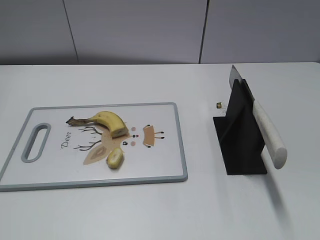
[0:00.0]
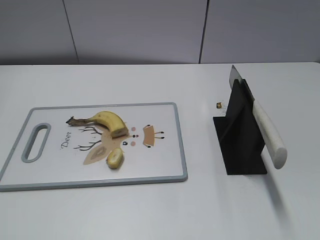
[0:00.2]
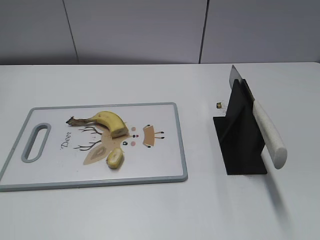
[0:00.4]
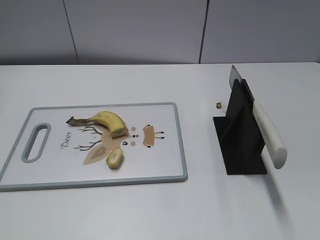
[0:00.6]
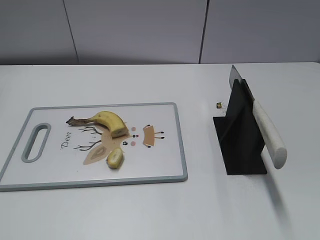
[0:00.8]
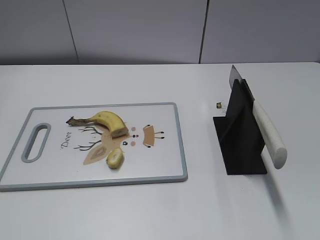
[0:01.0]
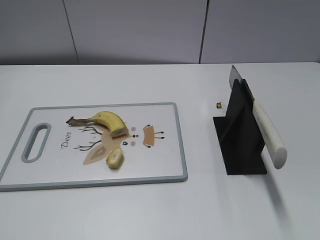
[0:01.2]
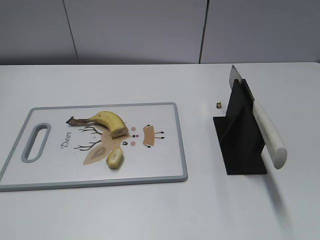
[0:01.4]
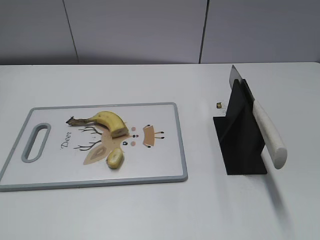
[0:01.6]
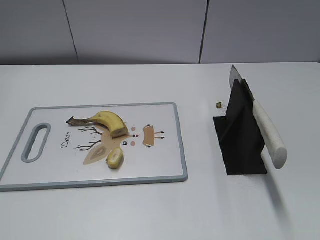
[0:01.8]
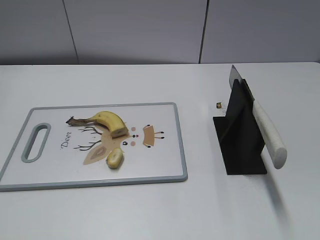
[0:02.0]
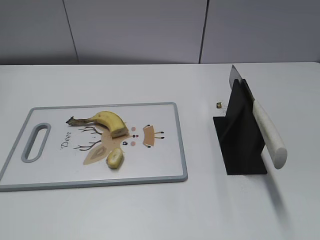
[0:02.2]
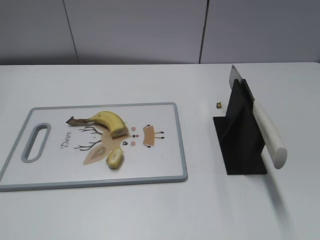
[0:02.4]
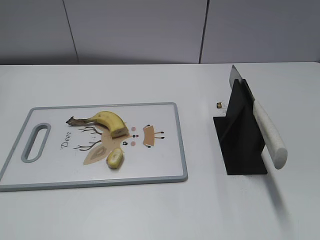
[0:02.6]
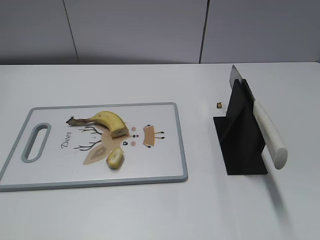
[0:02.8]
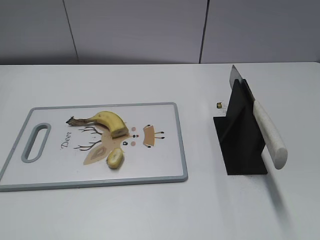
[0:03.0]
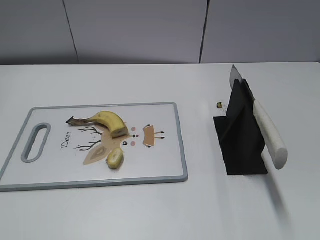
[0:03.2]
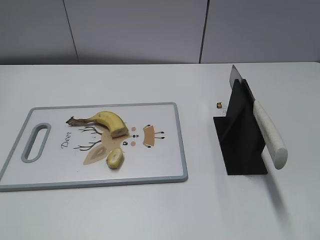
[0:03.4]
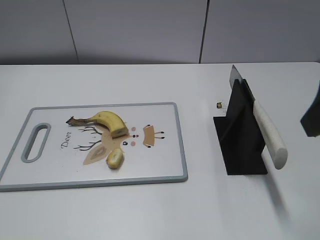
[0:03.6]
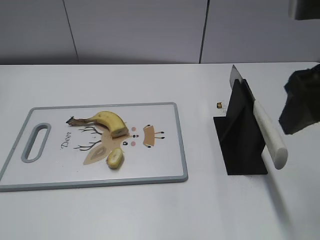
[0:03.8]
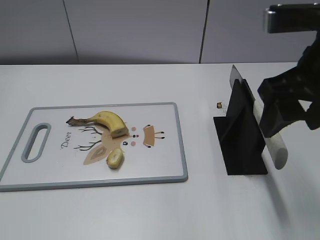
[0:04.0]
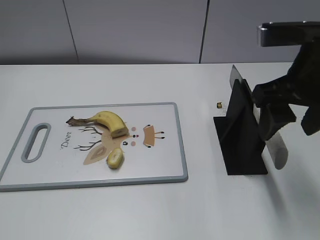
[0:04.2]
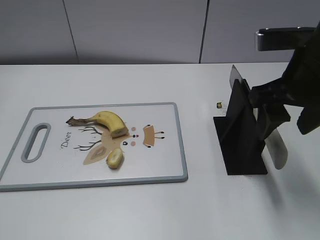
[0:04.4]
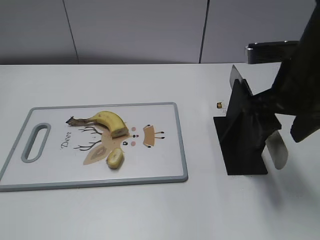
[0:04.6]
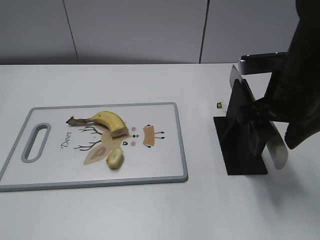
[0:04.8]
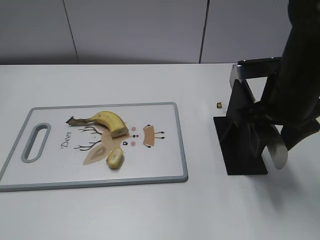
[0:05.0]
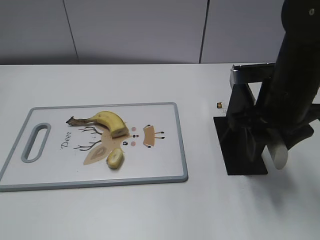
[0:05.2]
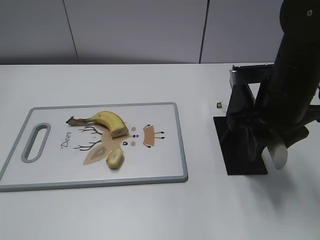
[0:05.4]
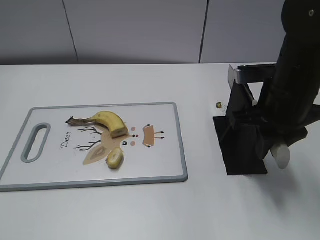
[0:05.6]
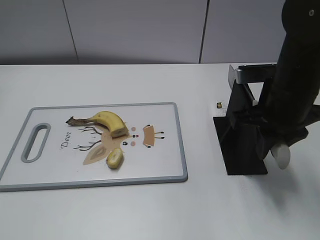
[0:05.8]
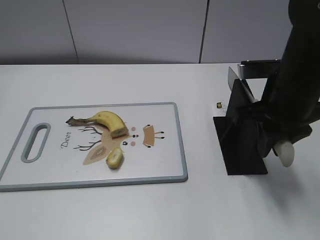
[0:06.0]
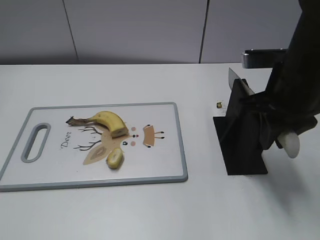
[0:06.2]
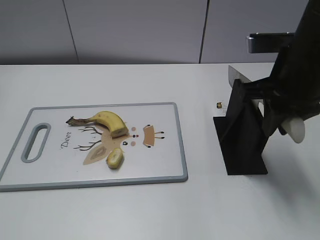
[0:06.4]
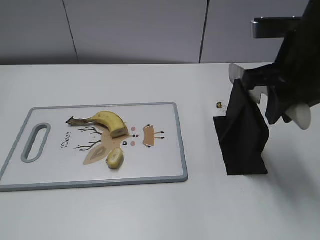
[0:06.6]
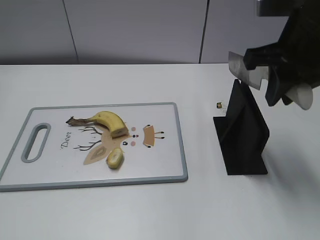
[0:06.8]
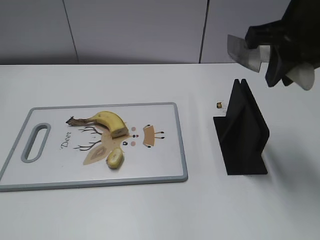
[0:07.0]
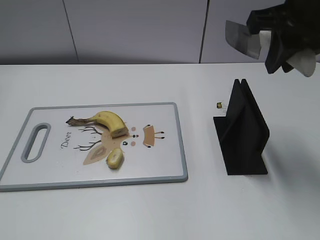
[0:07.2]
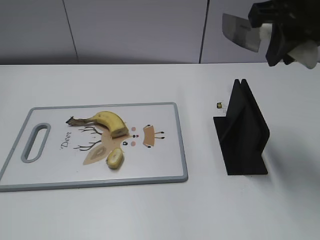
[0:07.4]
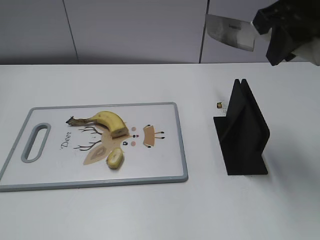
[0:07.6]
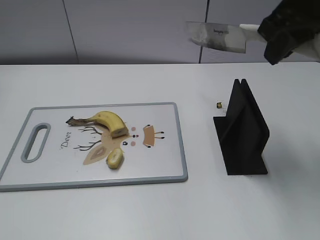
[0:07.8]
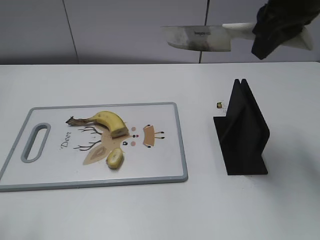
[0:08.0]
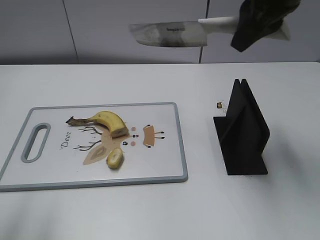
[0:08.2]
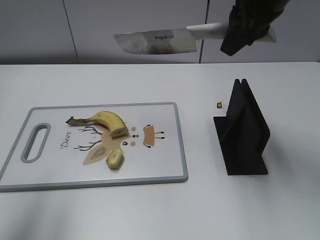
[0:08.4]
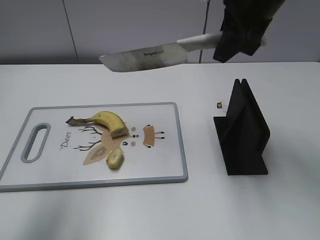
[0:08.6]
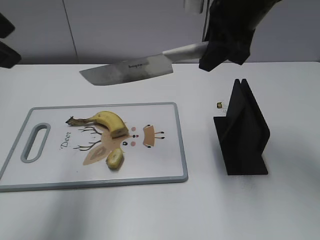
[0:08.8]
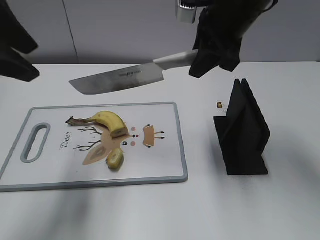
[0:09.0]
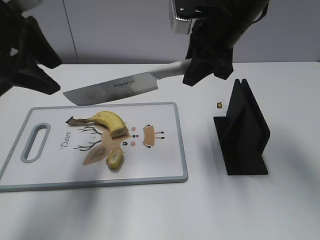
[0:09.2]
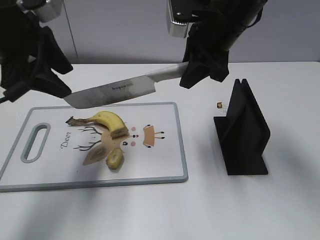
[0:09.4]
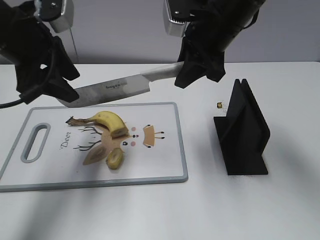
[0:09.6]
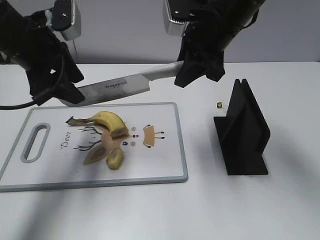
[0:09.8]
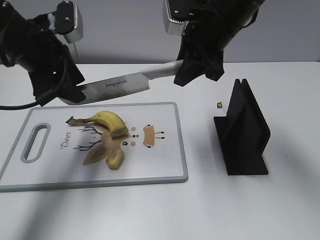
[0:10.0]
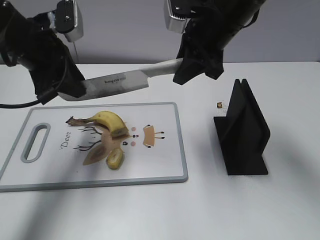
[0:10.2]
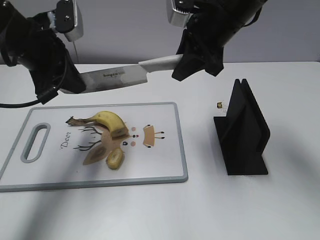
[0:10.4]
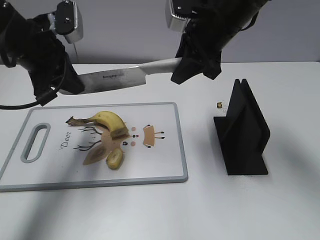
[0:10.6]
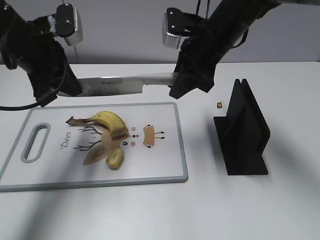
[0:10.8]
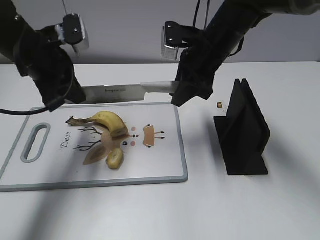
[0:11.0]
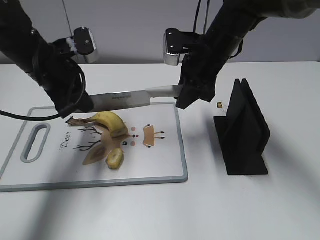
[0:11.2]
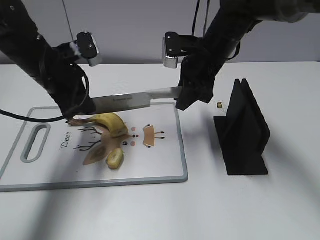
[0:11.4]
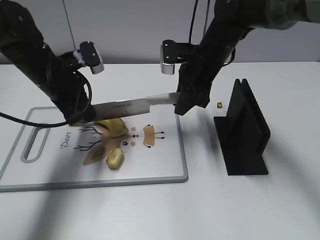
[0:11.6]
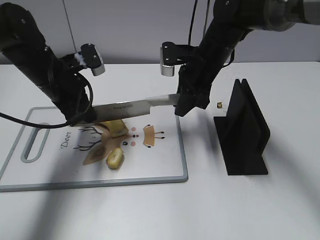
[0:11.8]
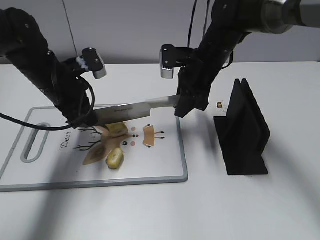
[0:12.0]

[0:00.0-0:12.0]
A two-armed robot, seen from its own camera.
Task of the whole recording: cut banana.
Step, 0:00.0 to 0:07.0: Grab the knife handle with your right hand.
0:03.0 to 0:04.4: The right gripper is displaced forward and to the left by roughly 20 cm.
0:04.4 to 0:06.0: The right gripper shifts about 5 cm downward, and closes.
0:06.0 to 0:07.6: The right gripper moves upward, about 15 cm.
0:07.6 to 0:09.0: The right gripper shifts some 10 cm forward, to the left and downward, while the left gripper is displaced forward by about 25 cm.
0:09.0 to 0:10.4: The left gripper heads downward and forward, covering some 15 cm, and closes.
0:10.4 to 0:12.0: Both grippers travel together downward, roughly 10 cm.

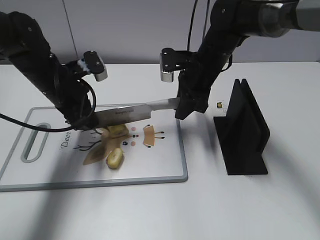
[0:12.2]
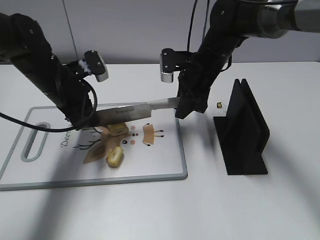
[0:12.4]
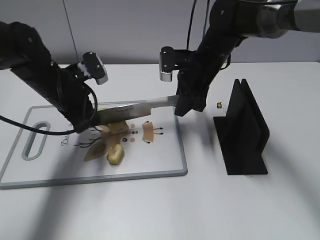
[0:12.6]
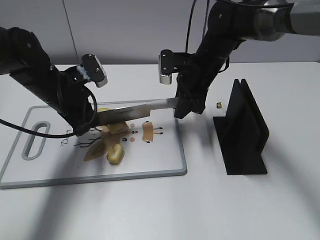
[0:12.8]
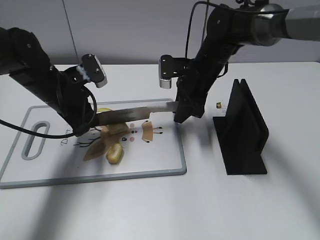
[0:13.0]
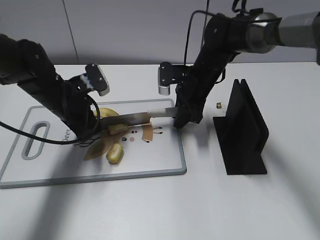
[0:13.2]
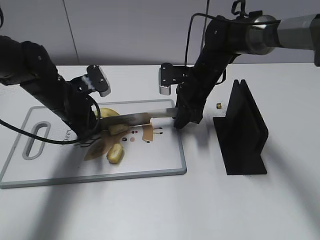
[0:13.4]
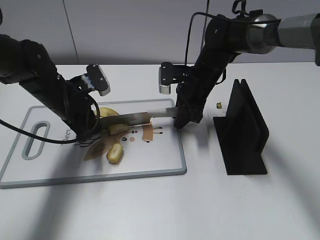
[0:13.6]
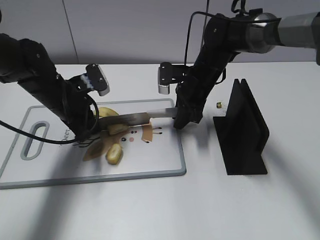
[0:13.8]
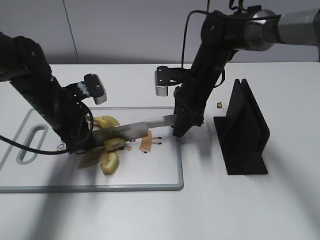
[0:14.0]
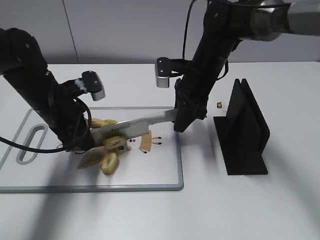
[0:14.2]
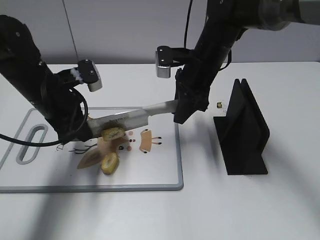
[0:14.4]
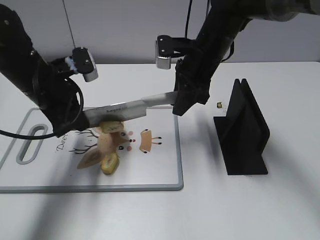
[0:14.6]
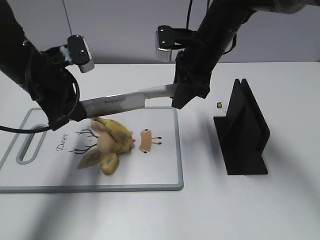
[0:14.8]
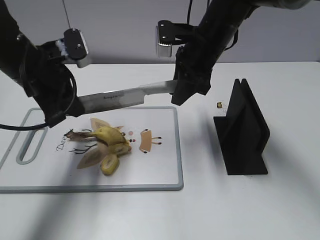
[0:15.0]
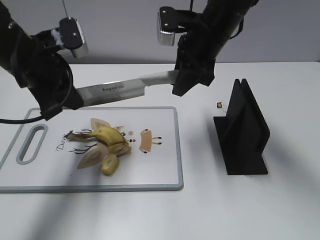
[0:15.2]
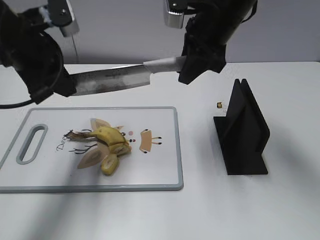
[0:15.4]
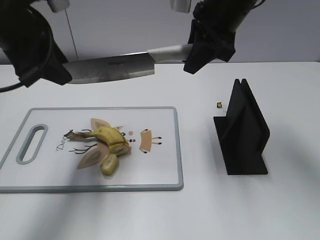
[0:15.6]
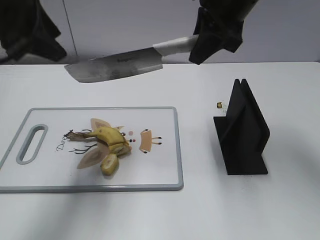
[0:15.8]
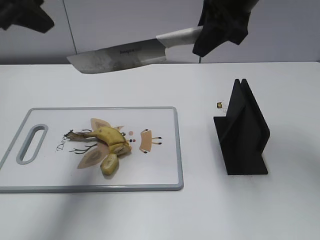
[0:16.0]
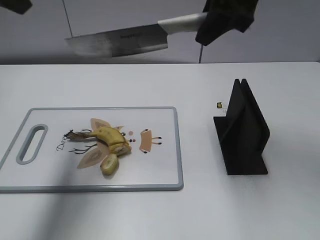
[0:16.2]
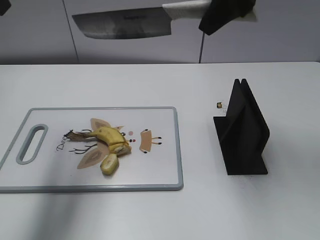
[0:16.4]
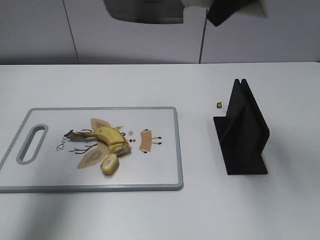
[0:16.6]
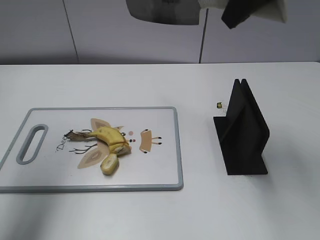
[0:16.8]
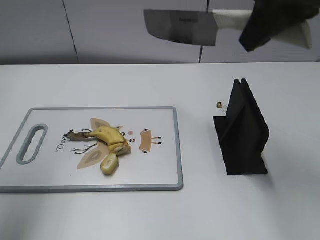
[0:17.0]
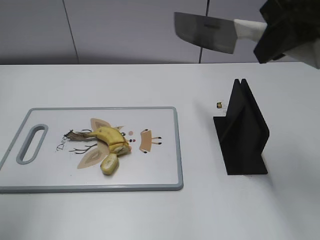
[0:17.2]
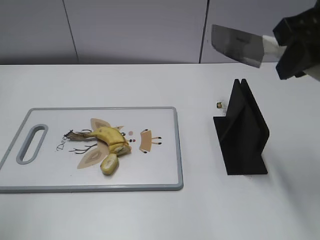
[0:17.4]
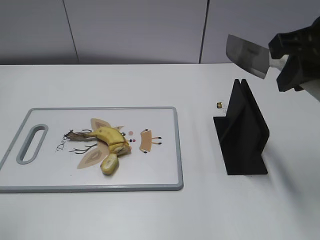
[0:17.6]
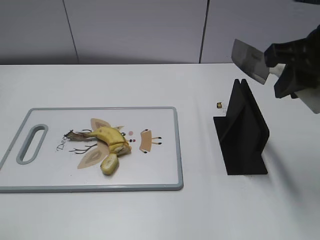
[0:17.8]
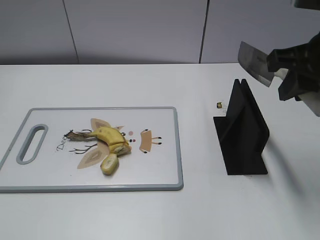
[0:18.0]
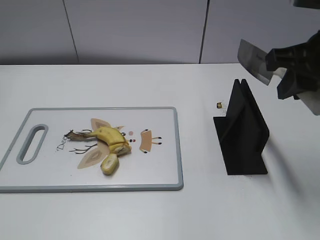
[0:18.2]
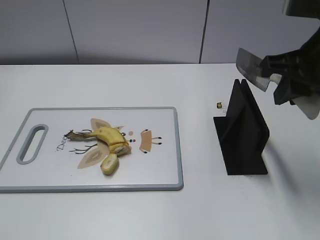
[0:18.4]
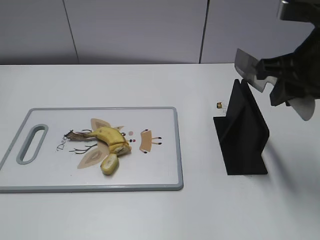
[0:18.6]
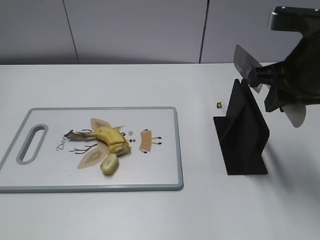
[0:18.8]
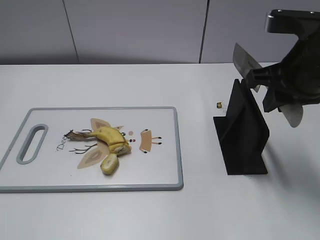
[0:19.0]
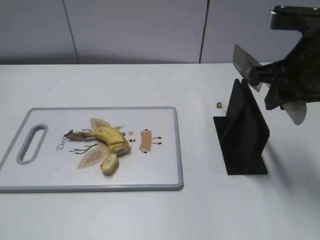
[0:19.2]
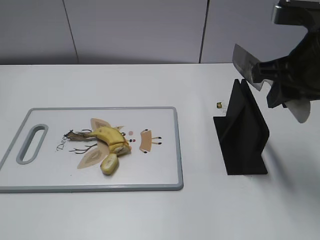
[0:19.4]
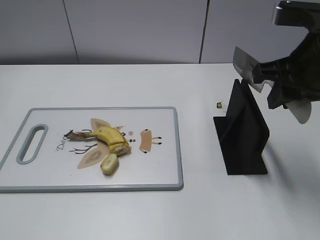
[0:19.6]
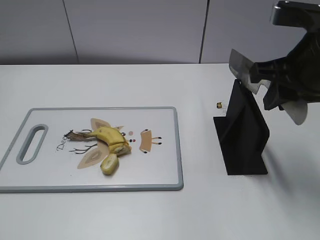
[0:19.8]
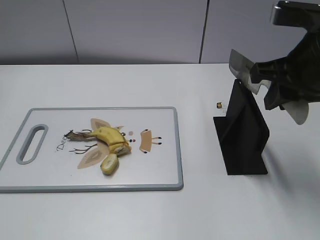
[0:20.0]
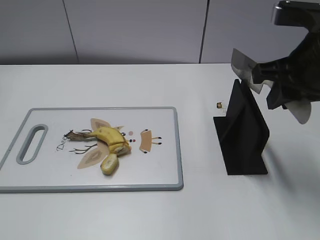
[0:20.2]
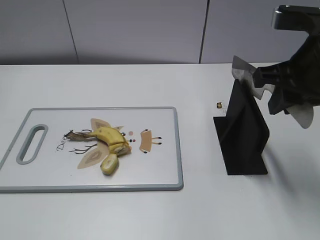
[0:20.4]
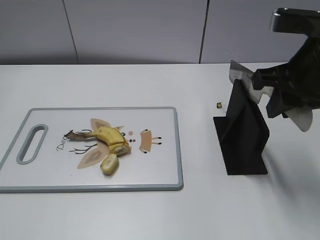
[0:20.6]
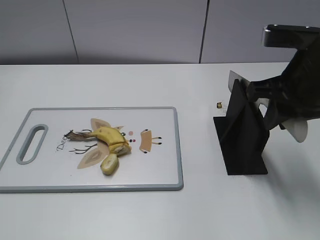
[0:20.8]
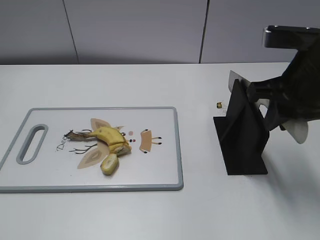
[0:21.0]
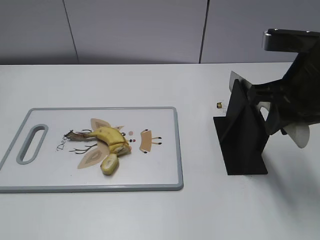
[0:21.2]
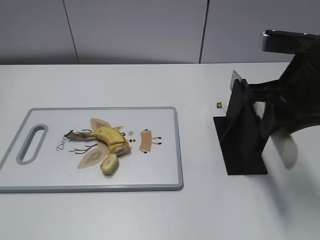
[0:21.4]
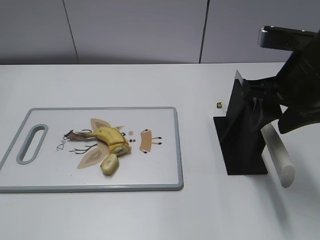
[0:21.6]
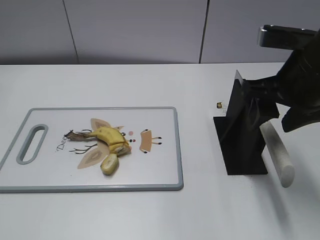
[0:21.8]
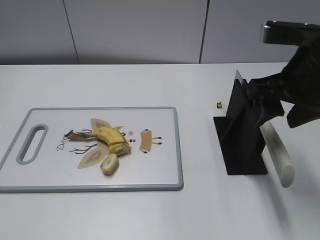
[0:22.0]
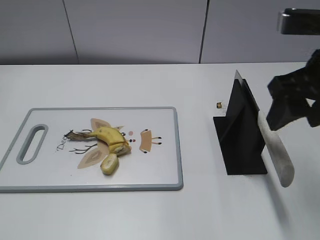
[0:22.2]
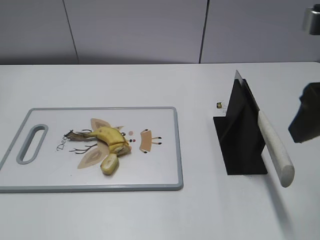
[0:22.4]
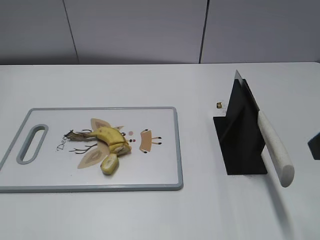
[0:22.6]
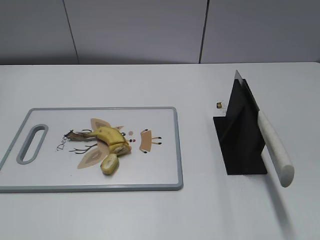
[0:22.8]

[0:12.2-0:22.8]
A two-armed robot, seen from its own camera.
Task of the whole recording: cut banana.
Step, 0:13.4 to 0:17.4: Cut the banana with your right hand.
Step, 0:17.6 to 0:19.2: Lift the knife with your right hand.
0:13.8 to 0:15.2: Both grippers travel together upward, about 10 cm.
0:15.2 to 0:16.8: The right gripper is displaced upward and backward by about 15 cm; the left gripper heads upward and to the left, covering about 20 cm, and opens.
0:16.8 to 0:18.2: The right gripper goes approximately 15 cm downward, backward and to the right. Meanwhile the left gripper goes approximately 25 cm backward and downward.
0:18.2 to 0:21.2: There are only small adjustments of the grippers.
0:21.2 to 0:22.8: The right gripper goes approximately 15 cm backward, and opens.
